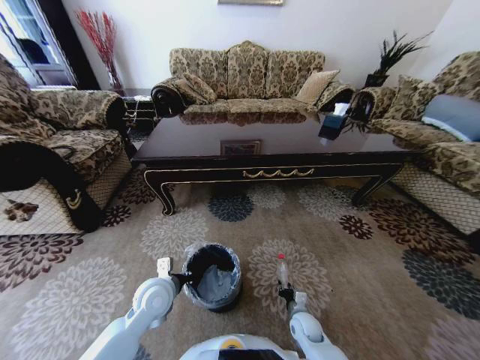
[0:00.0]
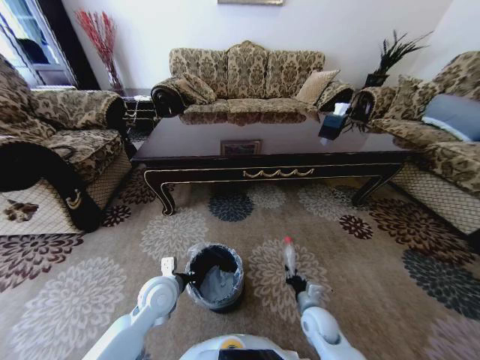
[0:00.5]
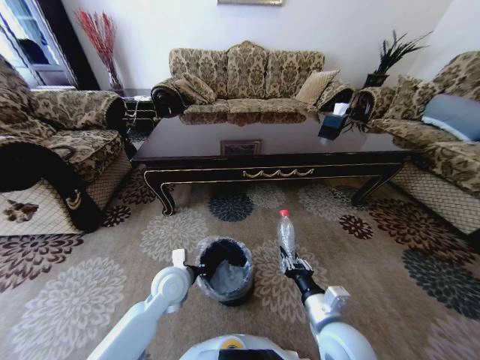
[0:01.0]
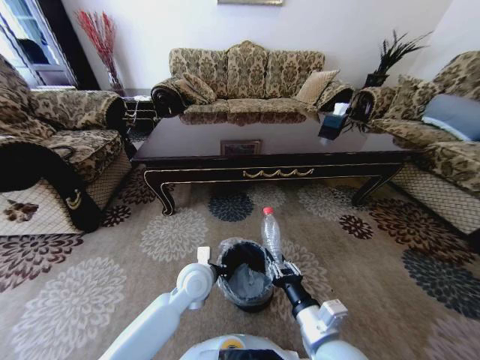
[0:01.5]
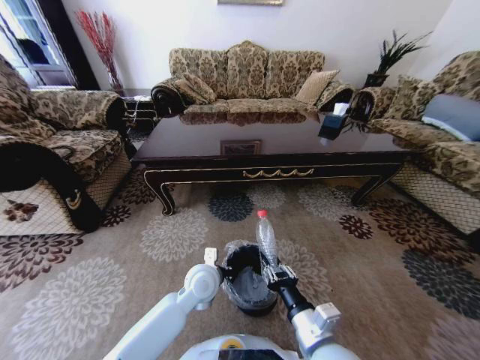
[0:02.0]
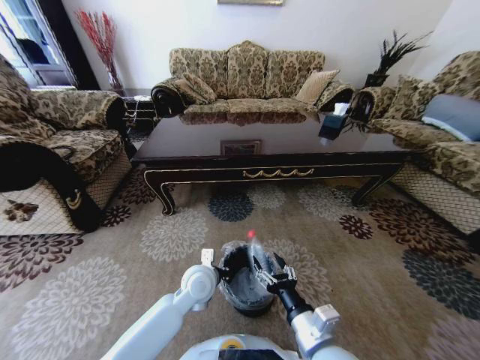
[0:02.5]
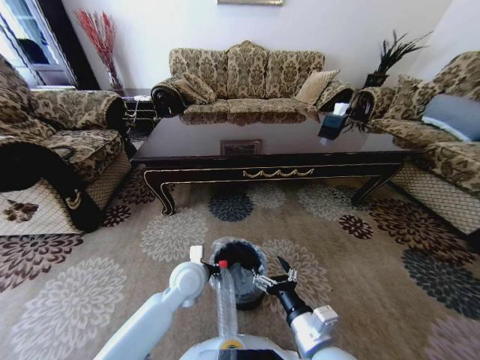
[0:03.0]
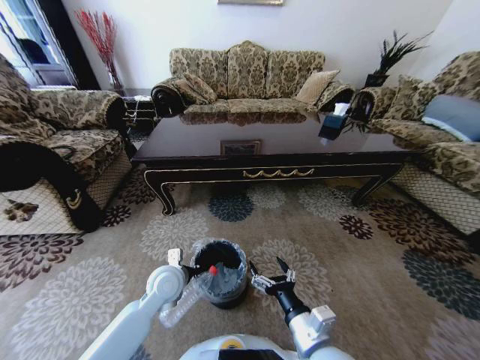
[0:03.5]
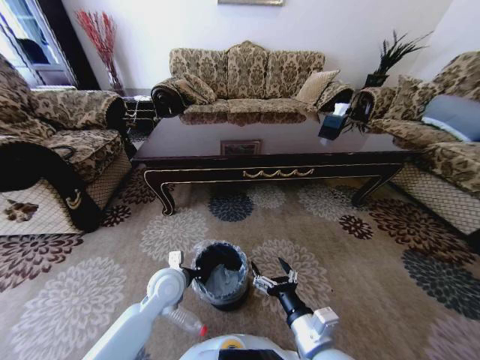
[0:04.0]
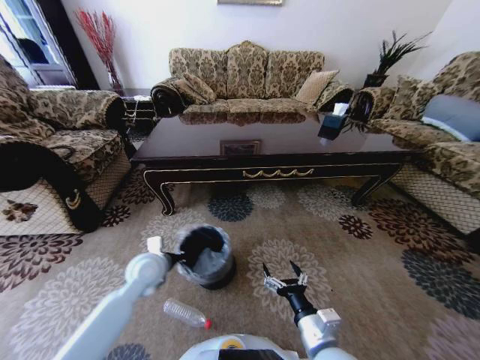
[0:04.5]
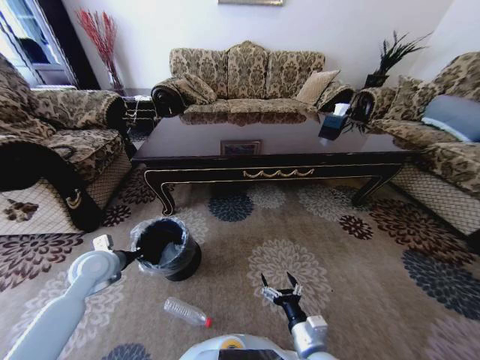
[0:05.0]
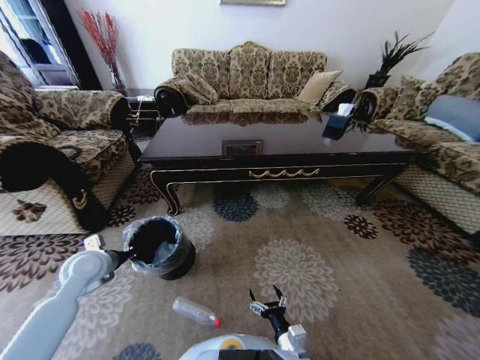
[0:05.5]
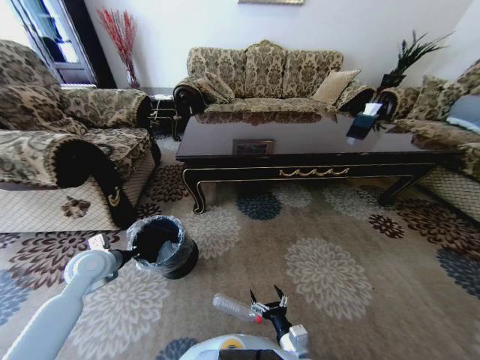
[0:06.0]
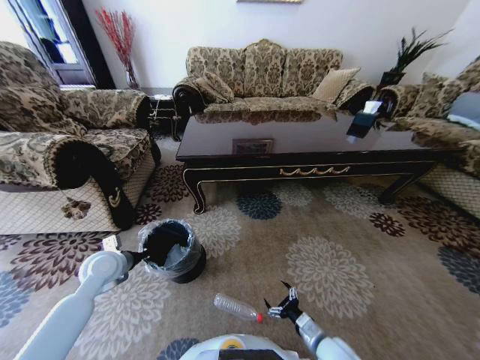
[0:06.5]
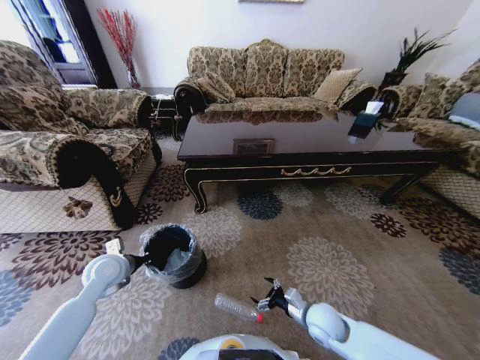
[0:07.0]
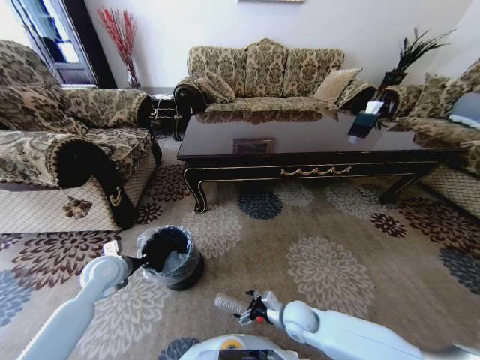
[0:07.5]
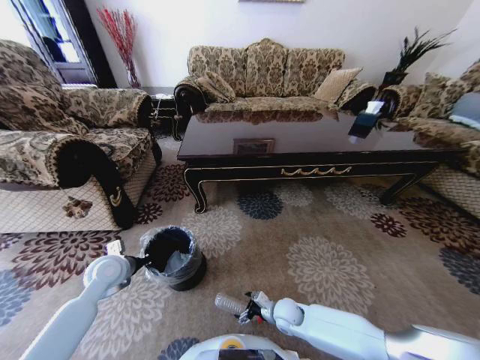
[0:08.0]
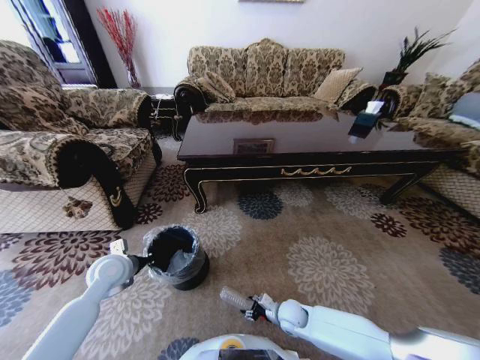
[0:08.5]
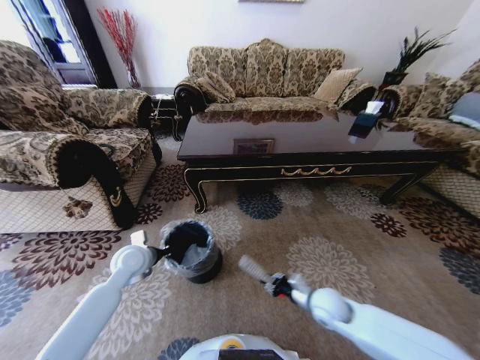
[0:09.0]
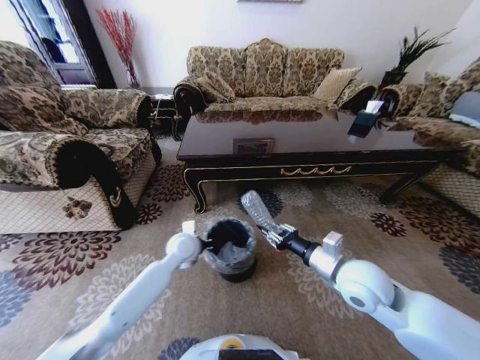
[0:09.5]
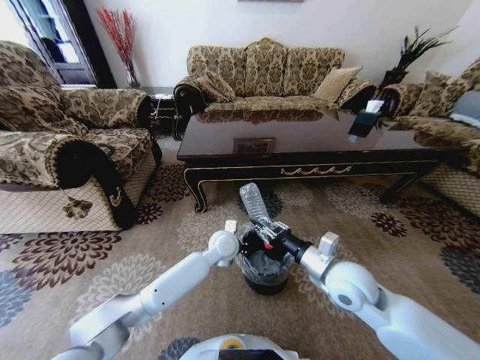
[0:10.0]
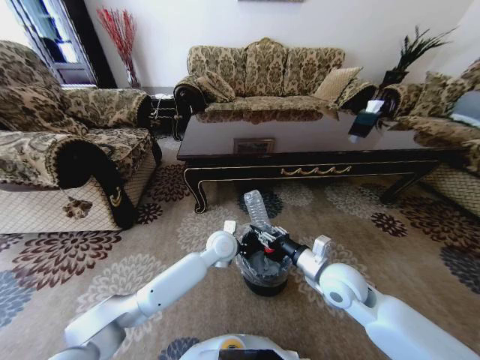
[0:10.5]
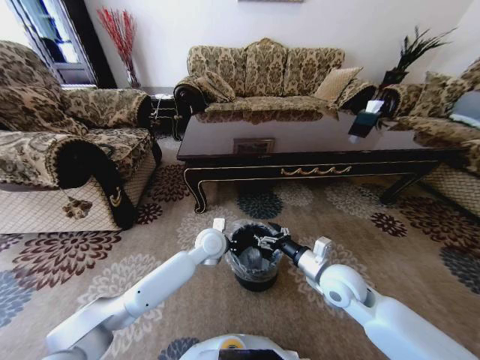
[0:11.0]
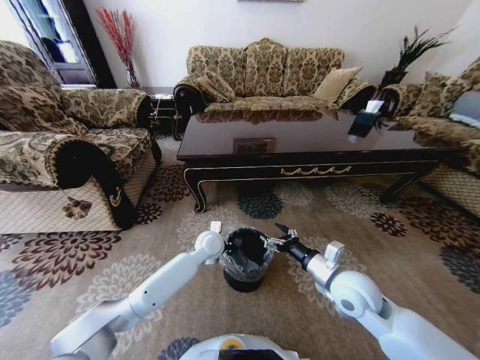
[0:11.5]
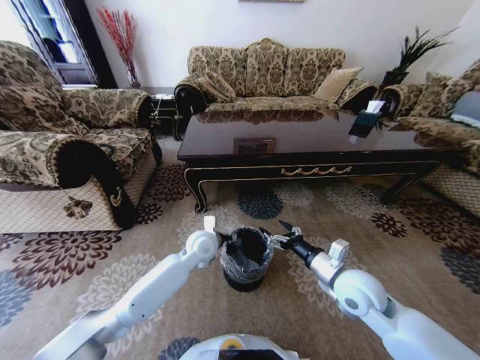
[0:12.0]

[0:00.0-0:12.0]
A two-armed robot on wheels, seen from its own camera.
Task of the whole recording: Move to the front of the table and pick up the trash from the floor, then place it into the trash bin.
0:00.0 to 0:02.0: The left gripper is displaced to the right by approximately 10 cm. The right gripper is displaced upward and backward by about 30 cm.
0:02.0 to 0:04.0: The left gripper shifts about 10 cm to the left, while the right gripper opens its fingers.
0:04.0 to 0:06.0: The left gripper travels to the left by roughly 20 cm. The right gripper shifts approximately 15 cm downward.
0:06.0 to 0:08.0: The right gripper is displaced forward and downward by about 20 cm.
0:08.0 to 0:10.0: The left gripper is displaced to the right by roughly 30 cm; the right gripper travels upward by roughly 30 cm, and closes up.
0:10.0 to 0:12.0: The right gripper opens its fingers. Meanwhile the left gripper shifts some 5 cm to the left, and opens.

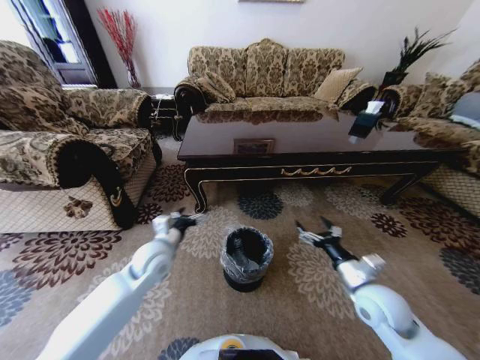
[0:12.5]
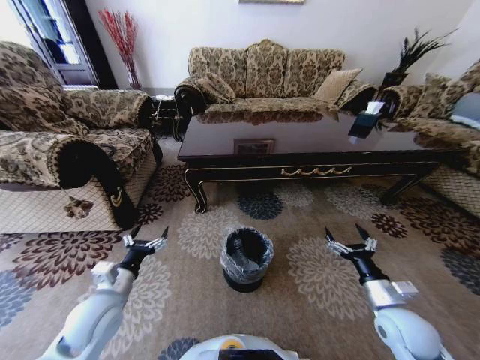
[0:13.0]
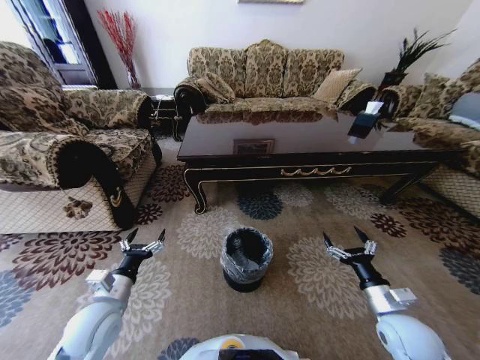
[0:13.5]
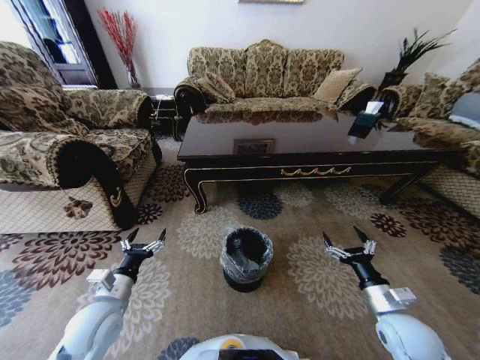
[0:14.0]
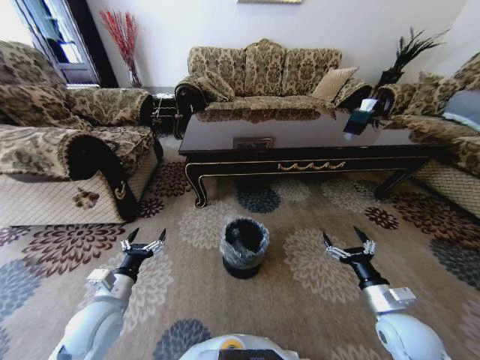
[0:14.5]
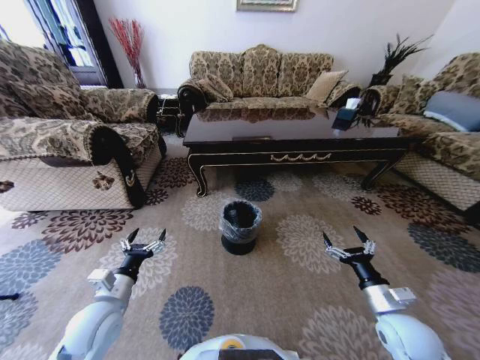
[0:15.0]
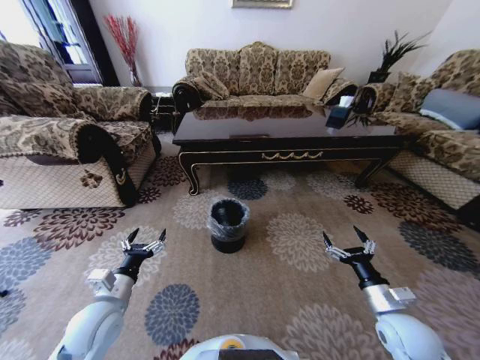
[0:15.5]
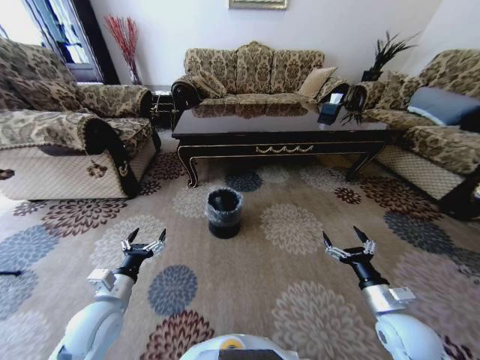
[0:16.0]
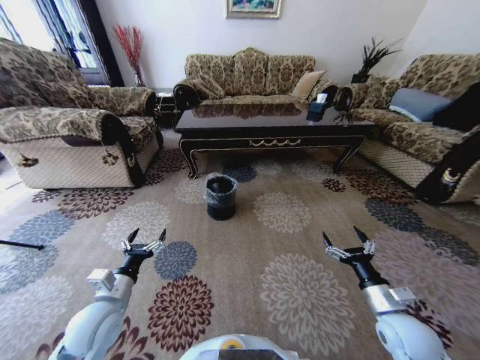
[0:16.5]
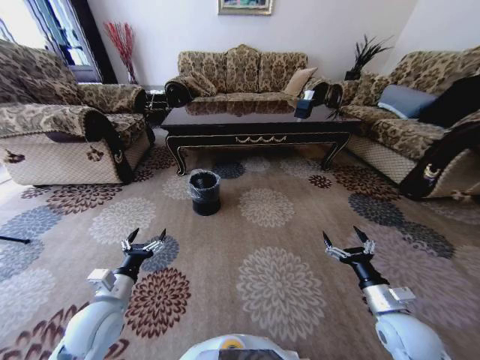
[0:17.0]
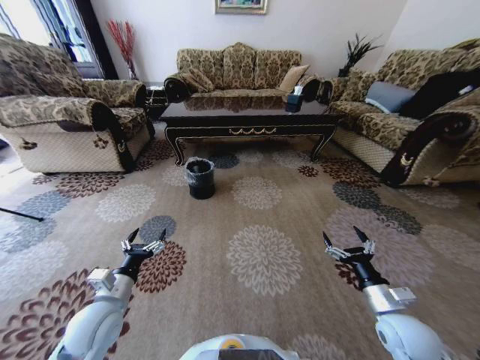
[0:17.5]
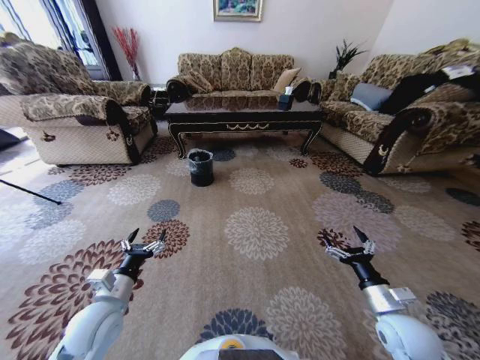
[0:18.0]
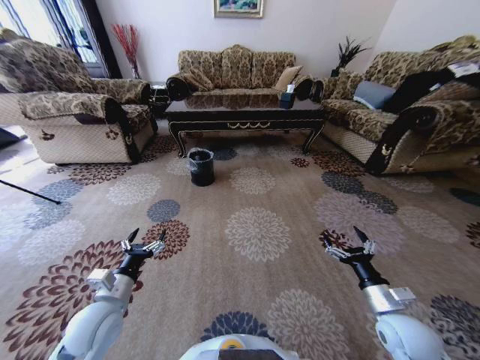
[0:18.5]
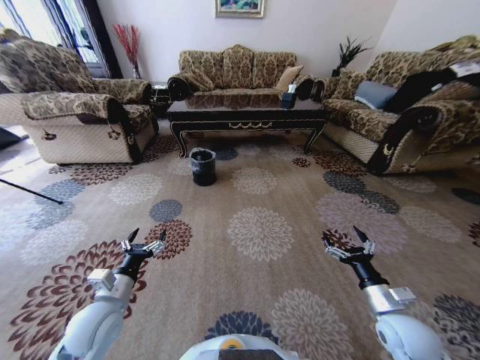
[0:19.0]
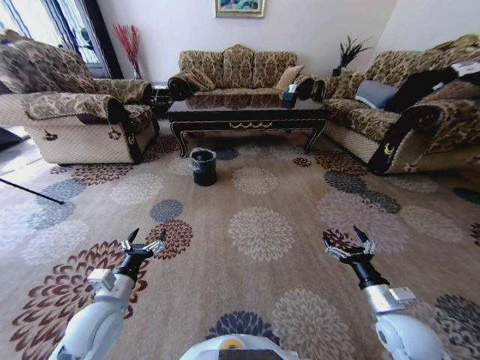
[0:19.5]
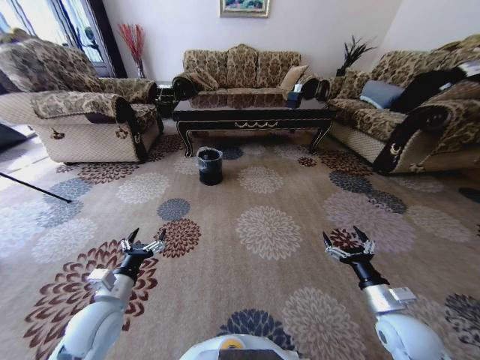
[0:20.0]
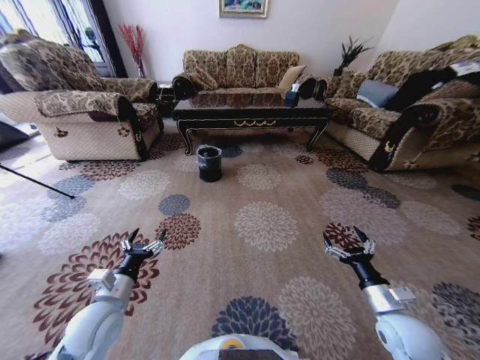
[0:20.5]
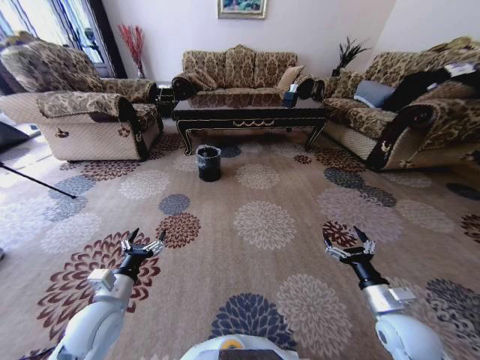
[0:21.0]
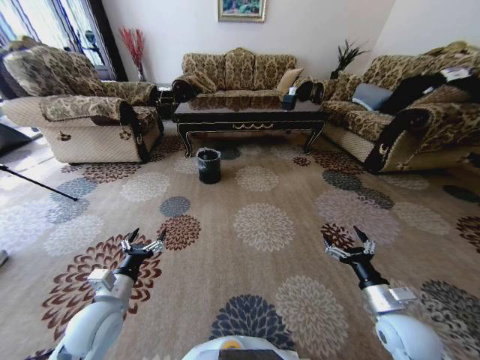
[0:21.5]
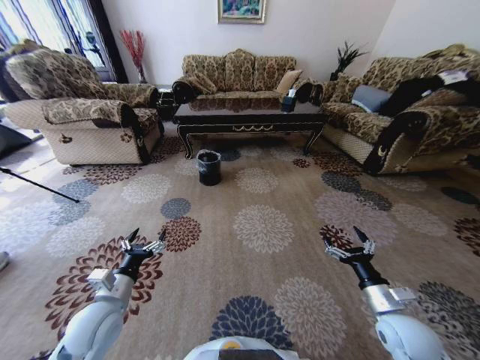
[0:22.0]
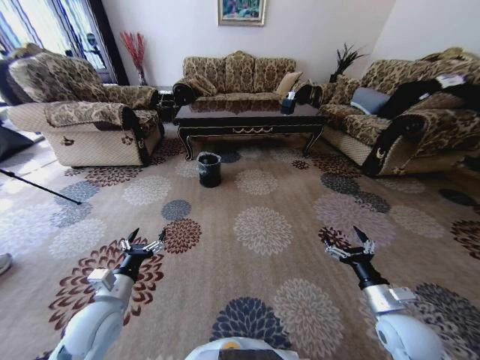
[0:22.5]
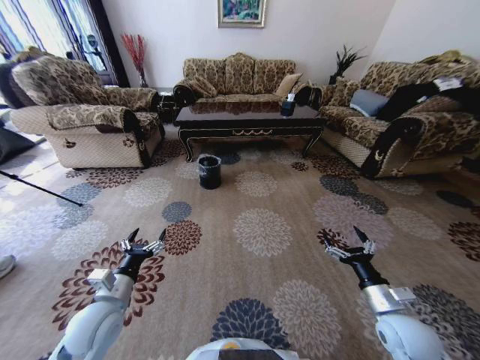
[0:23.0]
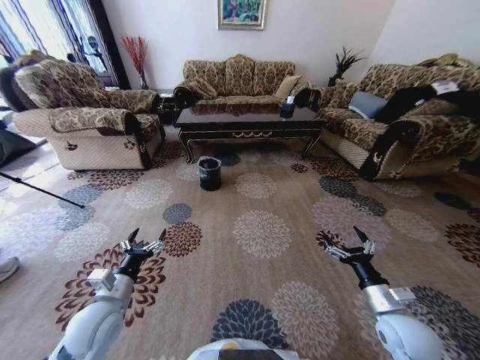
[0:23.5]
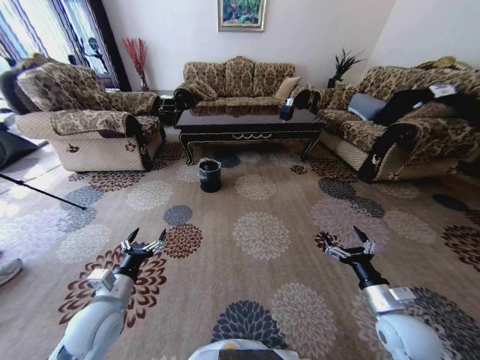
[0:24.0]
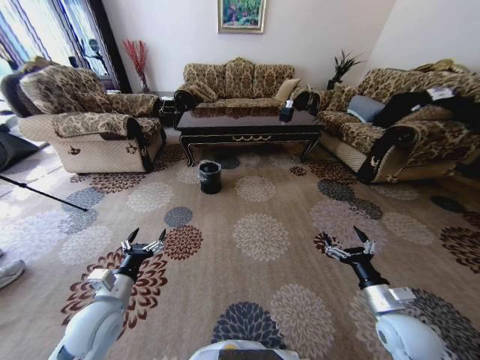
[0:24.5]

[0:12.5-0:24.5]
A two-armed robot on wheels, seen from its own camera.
Task of the whole recording: Move to the front of the table and pick up the trash from the floor, then place it into the trash bin.
0:12.5 to 0:14.5: The right gripper changes place by approximately 10 cm; the left gripper moves backward and to the left, some 15 cm.
